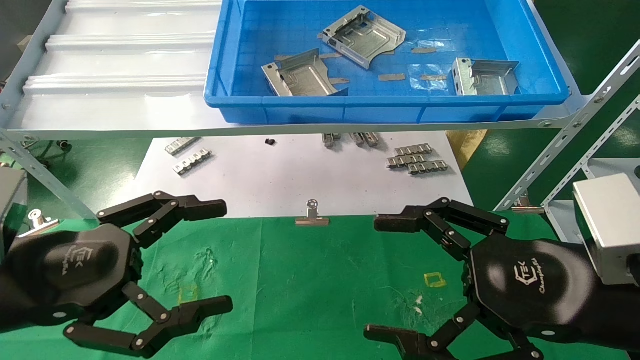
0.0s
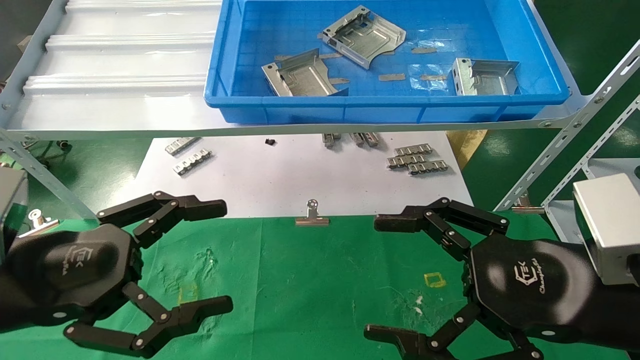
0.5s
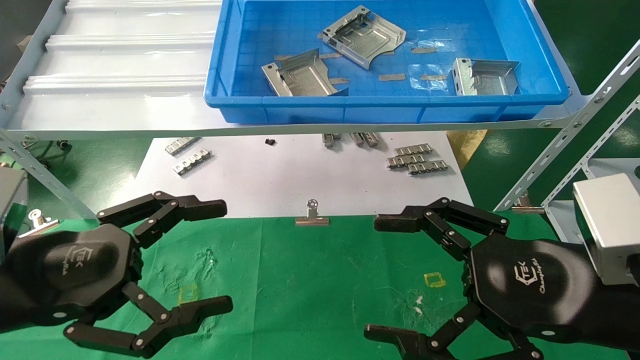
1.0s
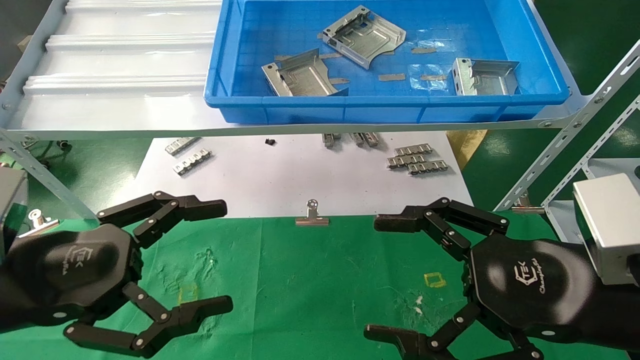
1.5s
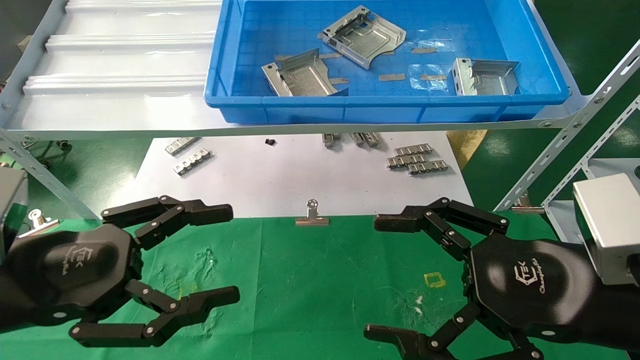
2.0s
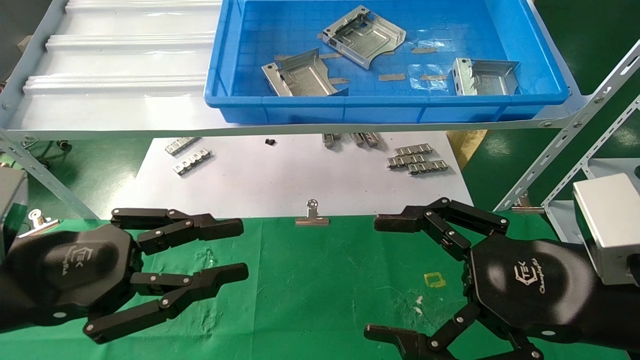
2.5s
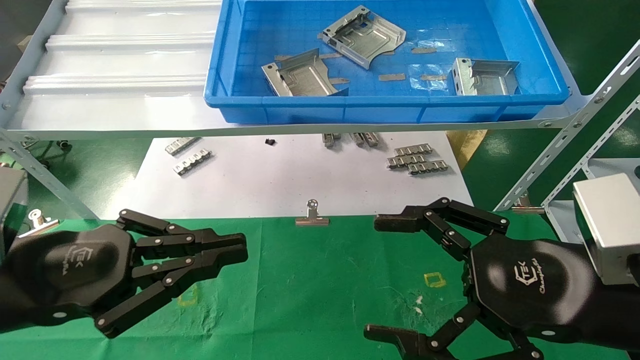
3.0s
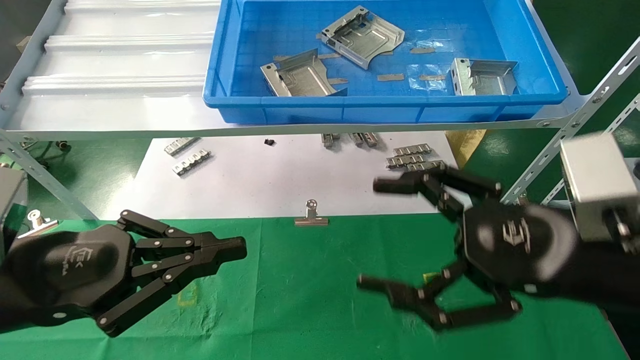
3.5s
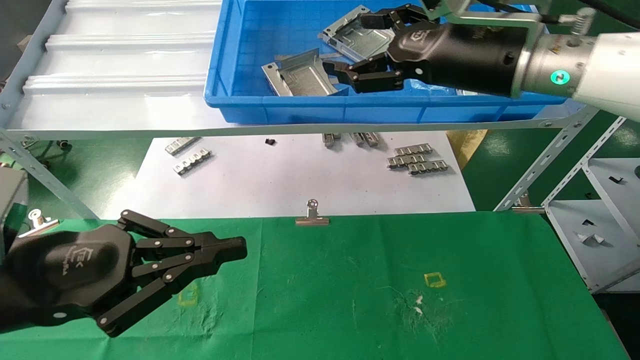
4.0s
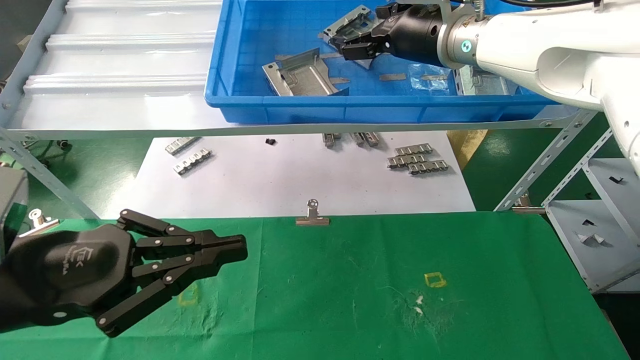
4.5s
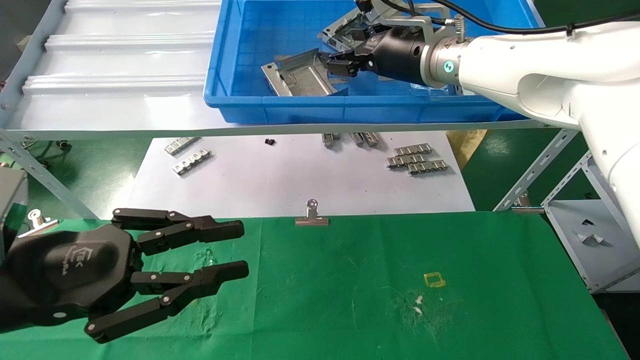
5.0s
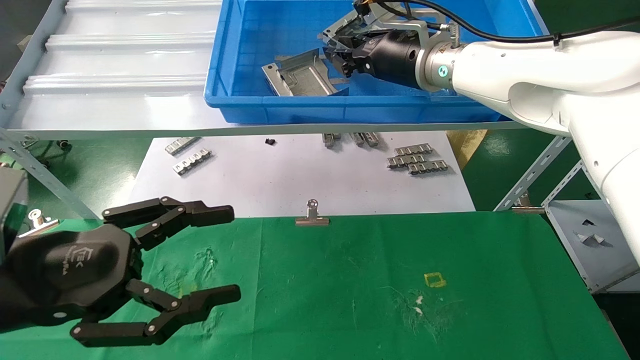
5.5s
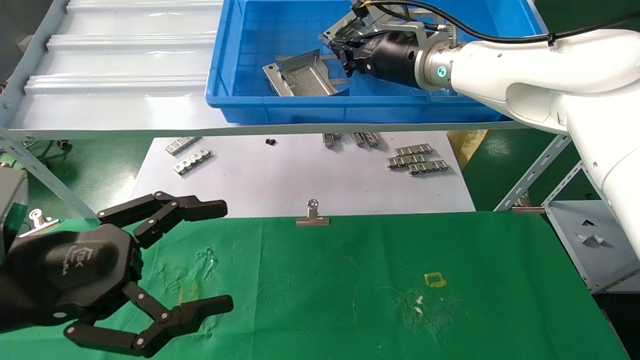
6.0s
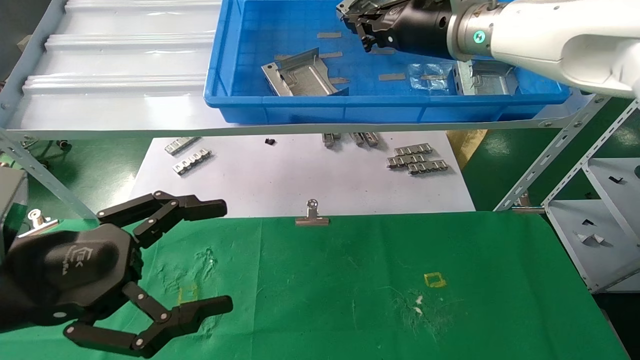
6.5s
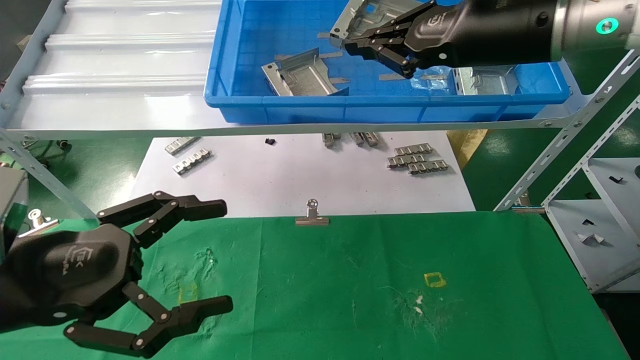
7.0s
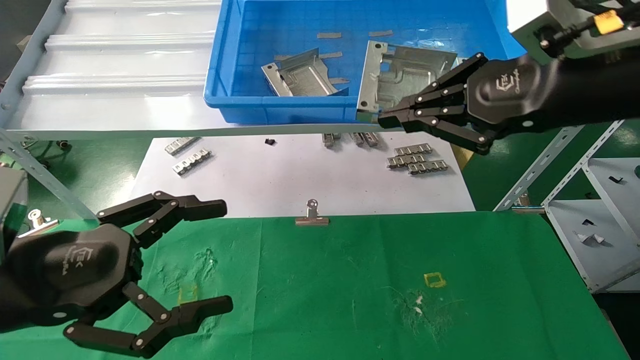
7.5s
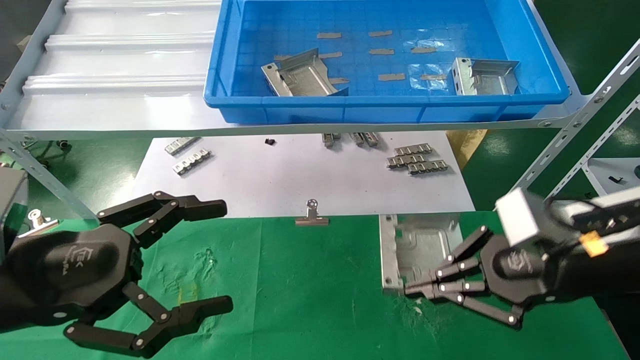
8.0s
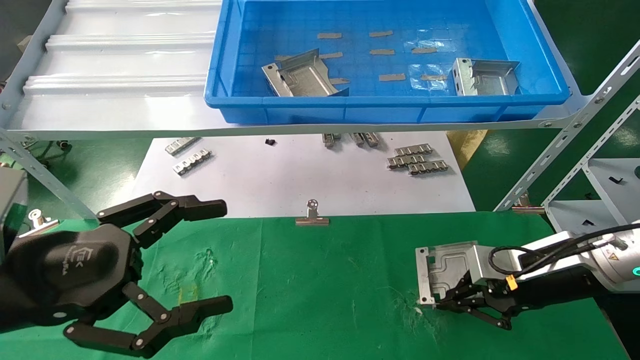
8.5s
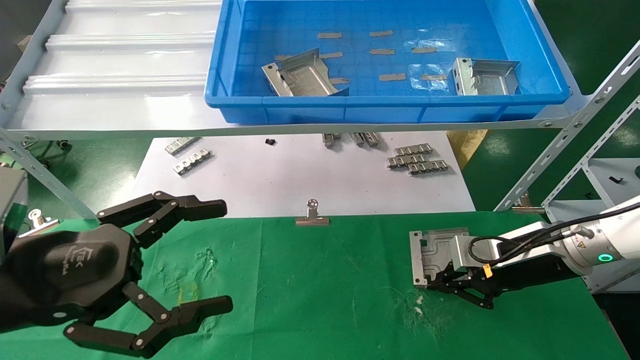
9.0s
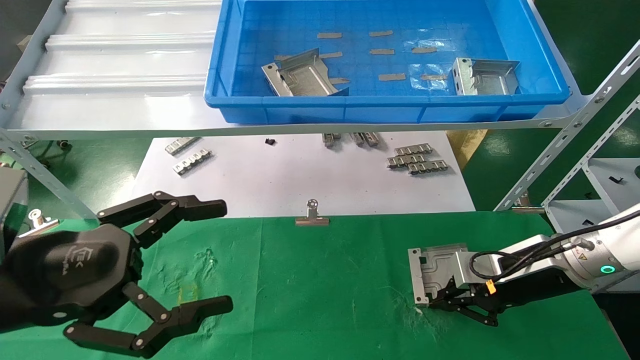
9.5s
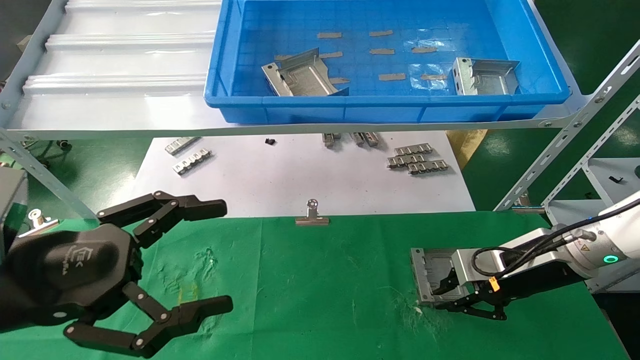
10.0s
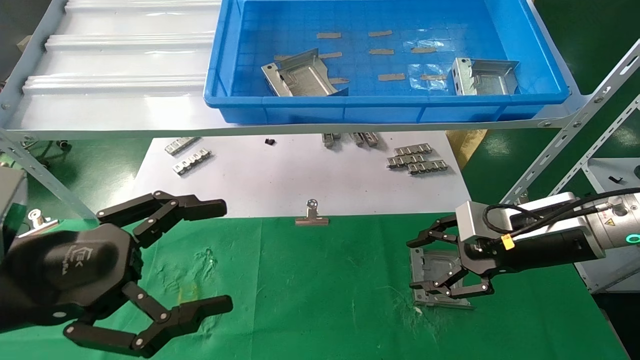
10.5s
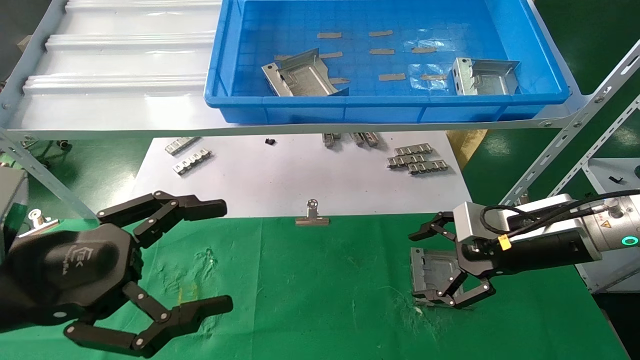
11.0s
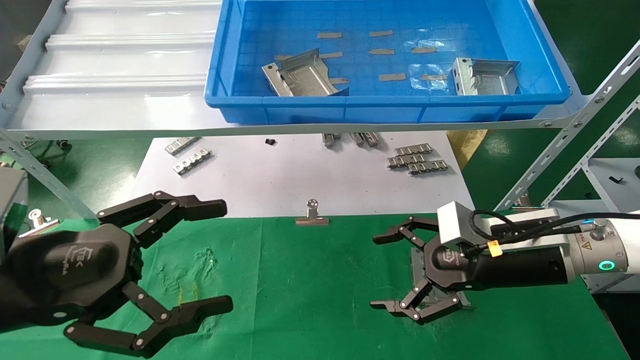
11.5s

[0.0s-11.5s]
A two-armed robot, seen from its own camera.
Task of the whole recording: use the mechanical arm to pick up the parts and place them on the table.
Step, 3.0s to 6.5s: Pick up the hard drive bracket from the feeding area.
Step, 7.0s to 11.0s: Place the hard drive bracket into the box.
0.0s to 2.0s: Both grippers stay about where they are.
2.0s to 4.0s: The right gripper is displaced forward and upward by approximately 25 cm, while the left gripper closes its fingers.
4.0s to 6.0s: The right gripper shifts roughly 10 cm forward and to the left, and closes its fingers. The left gripper opens its fingers.
6.0s to 7.5s: The right gripper goes approximately 25 cm backward and to the right.
7.5s to 9.5s: The right gripper shifts some 25 cm downward and forward.
9.5s to 11.5s: The right gripper shifts roughly 5 cm to the left, and opens its fingers.

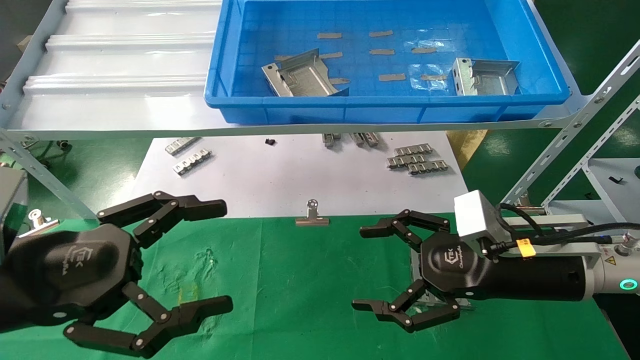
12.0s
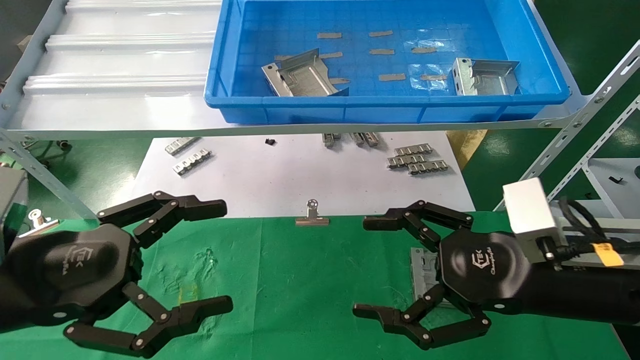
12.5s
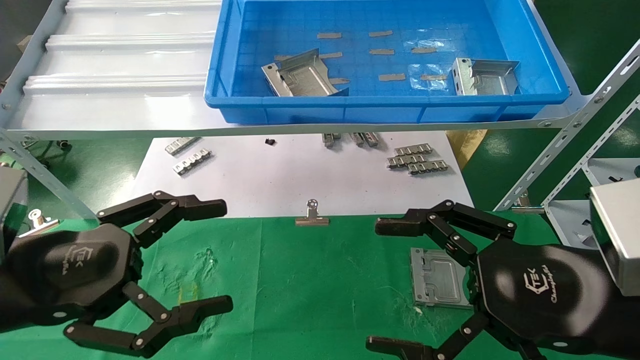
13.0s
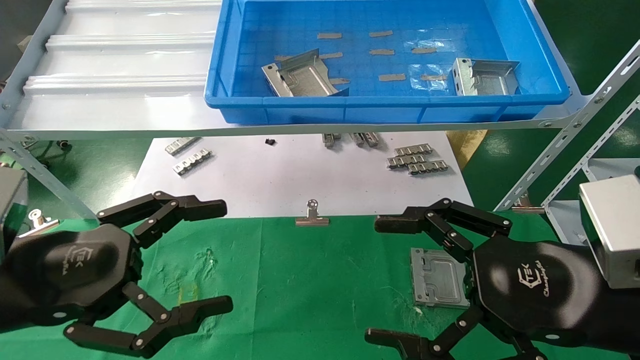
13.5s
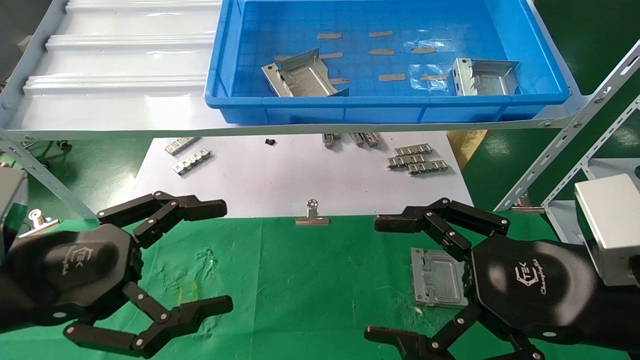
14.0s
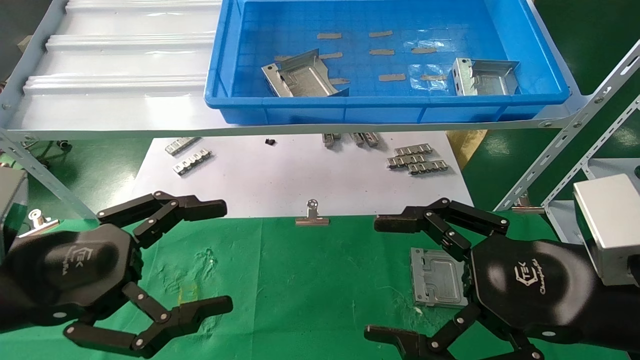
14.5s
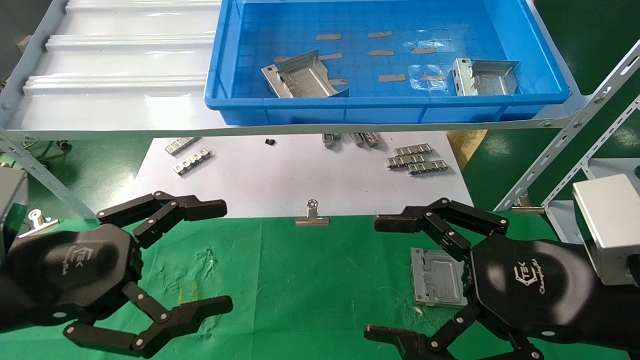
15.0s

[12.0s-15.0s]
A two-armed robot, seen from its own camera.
Task of the whole recording: use the mechanical arm to pick up the parts and place them on the table.
12.0s to 13.5s: The right gripper is displaced backward by about 10 cm.
13.5s to 15.0s: Both grippers stay put.

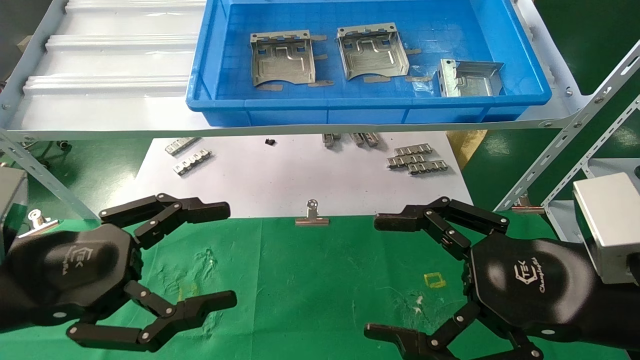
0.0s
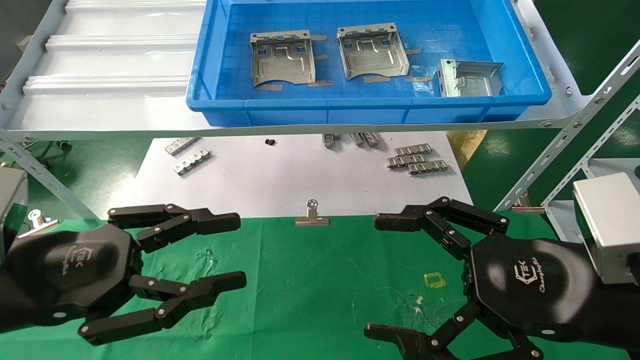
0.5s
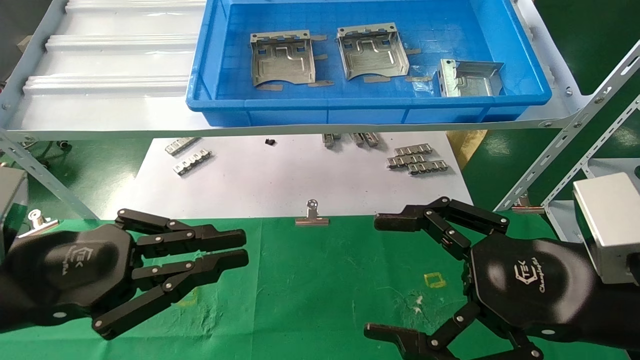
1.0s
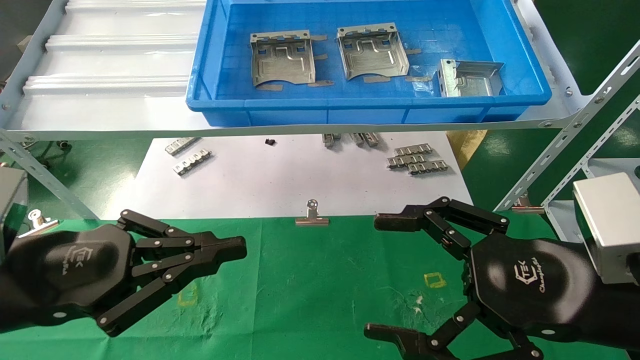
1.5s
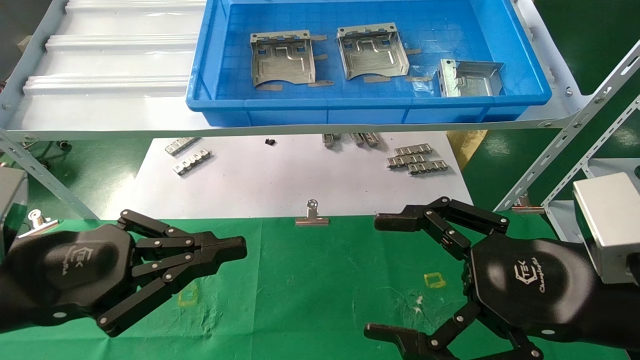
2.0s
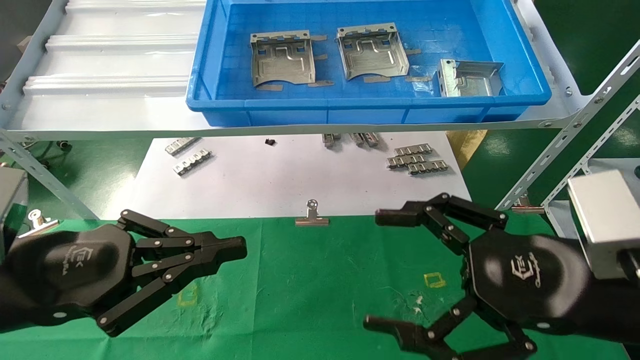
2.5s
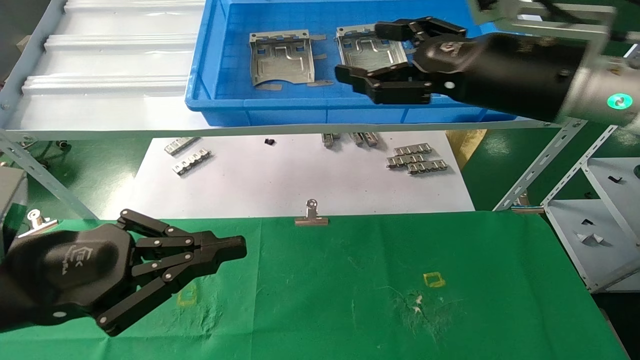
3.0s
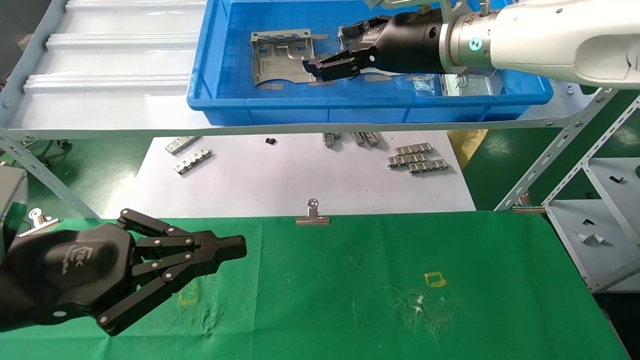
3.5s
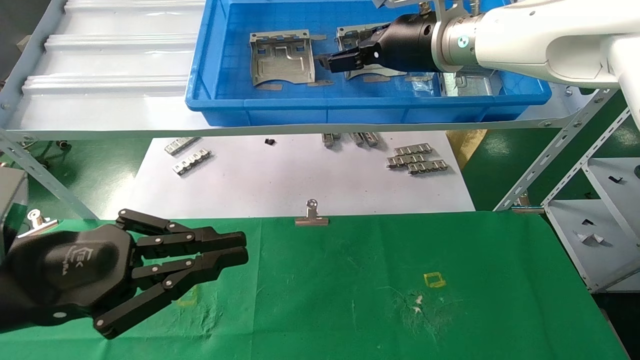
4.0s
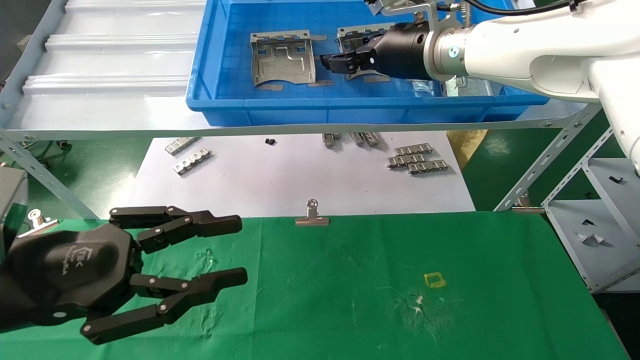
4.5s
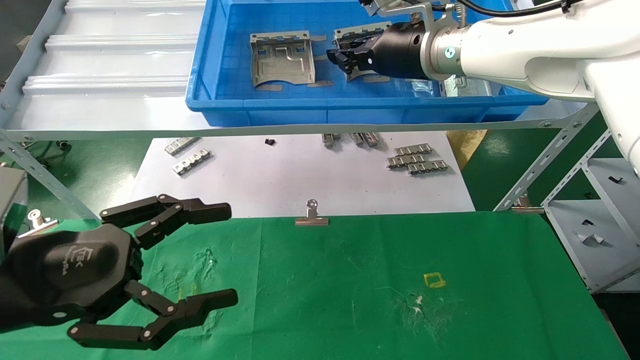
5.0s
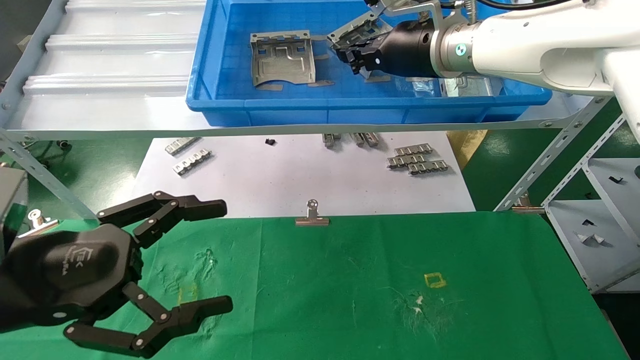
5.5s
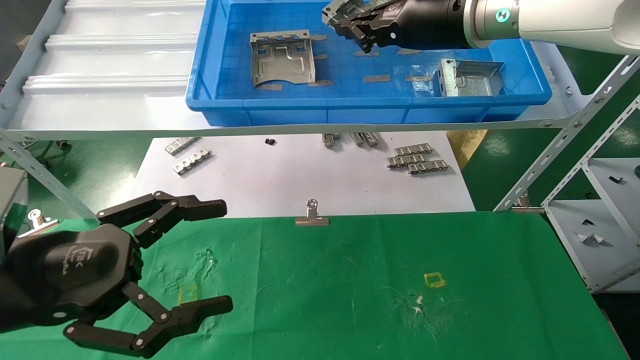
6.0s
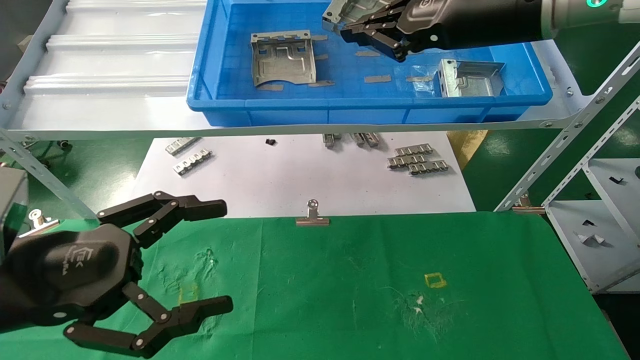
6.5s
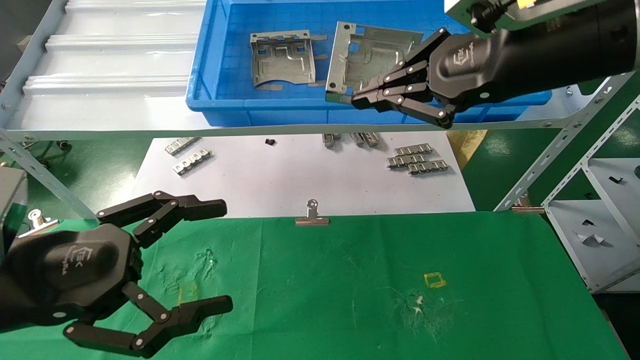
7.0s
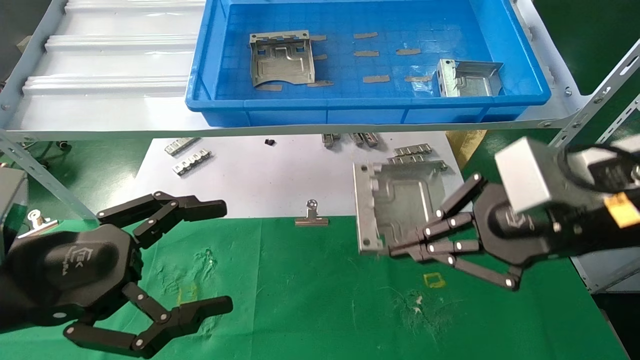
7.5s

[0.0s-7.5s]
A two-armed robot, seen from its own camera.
Task of the whole recording: use the mechanical arm to pick up the parts and place them on the table.
Step, 1.5s to 6.0s: Pick up the hard drive bracket from the feeding area.
0.0s to 2.0s: The left gripper closes up.
2.0s to 4.0s: The right gripper travels forward, upward and to the left by some 35 cm.
4.0s to 5.5s: The right gripper closes its fingers; the left gripper opens its fingers.
5.5s to 7.5s: The right gripper travels backward, to the right and downward by roughly 25 cm.
